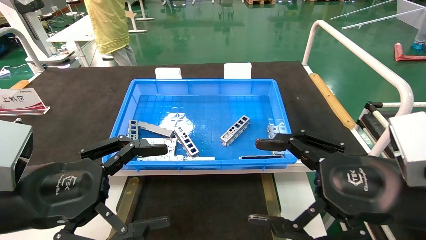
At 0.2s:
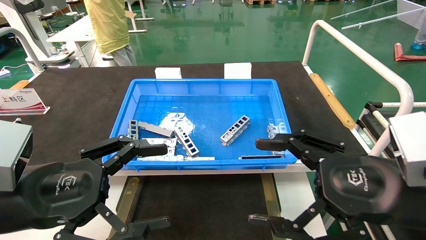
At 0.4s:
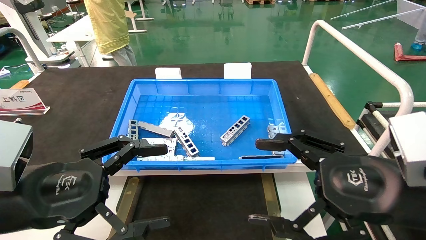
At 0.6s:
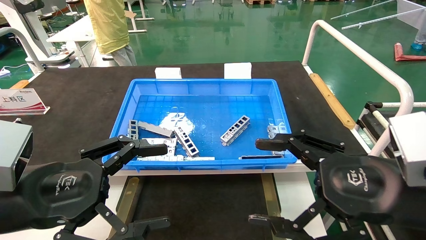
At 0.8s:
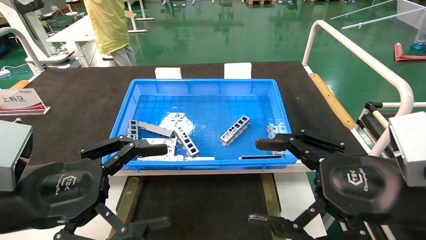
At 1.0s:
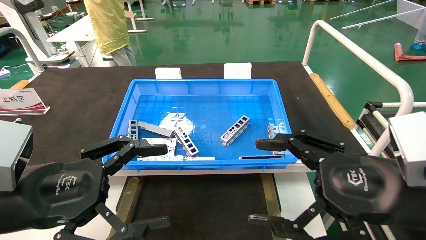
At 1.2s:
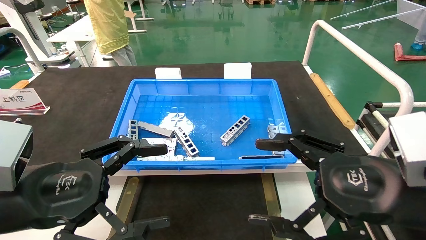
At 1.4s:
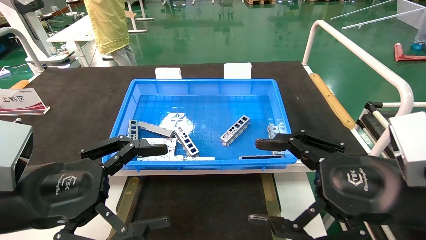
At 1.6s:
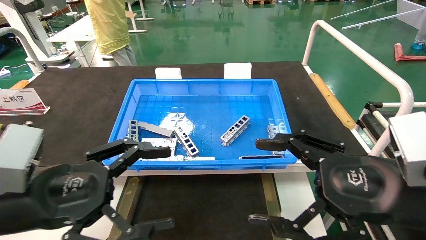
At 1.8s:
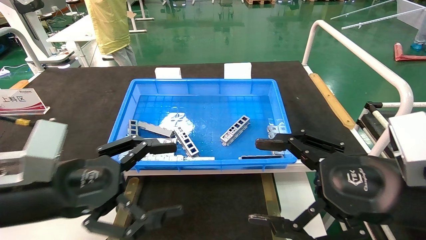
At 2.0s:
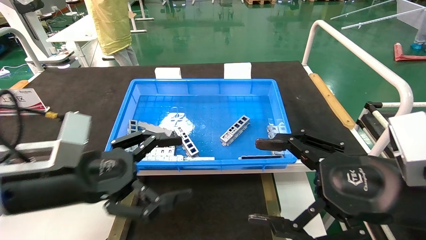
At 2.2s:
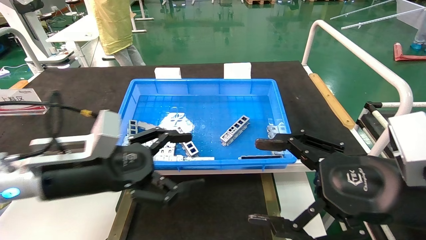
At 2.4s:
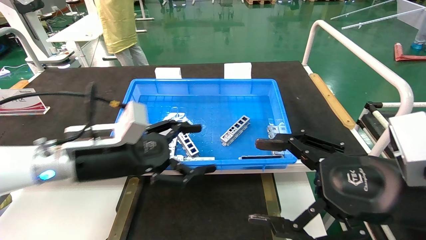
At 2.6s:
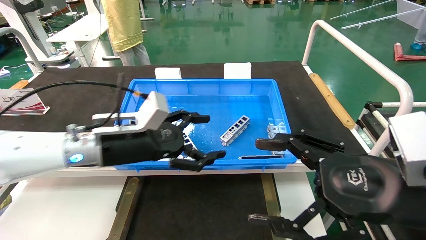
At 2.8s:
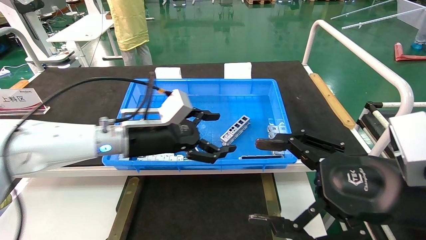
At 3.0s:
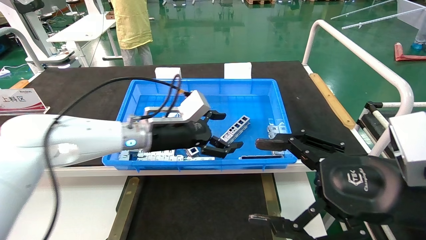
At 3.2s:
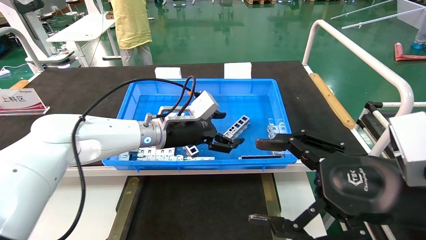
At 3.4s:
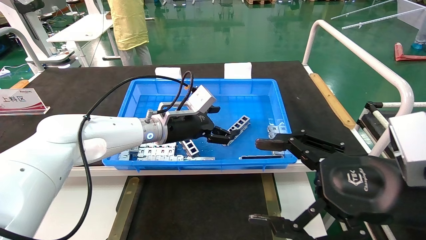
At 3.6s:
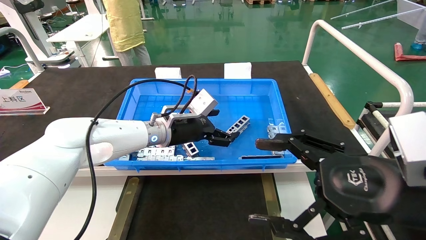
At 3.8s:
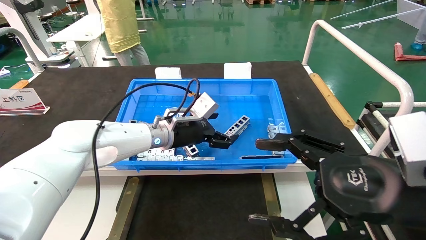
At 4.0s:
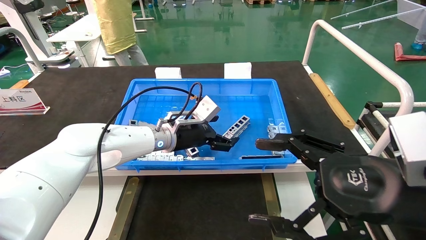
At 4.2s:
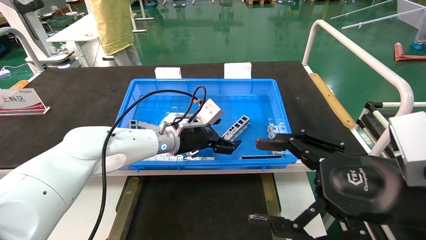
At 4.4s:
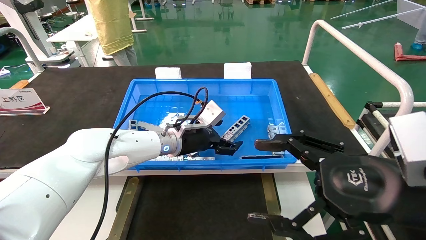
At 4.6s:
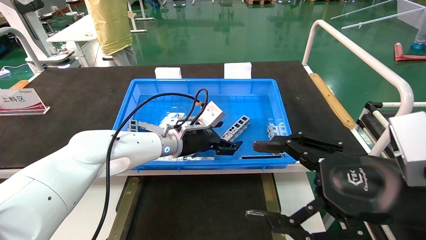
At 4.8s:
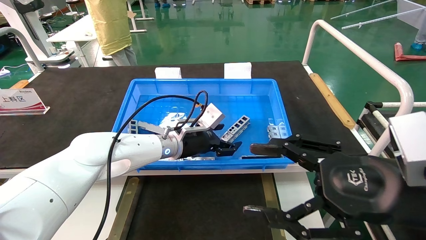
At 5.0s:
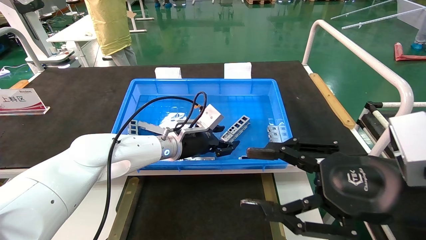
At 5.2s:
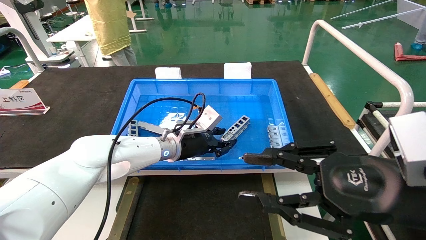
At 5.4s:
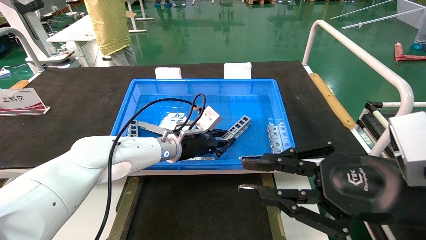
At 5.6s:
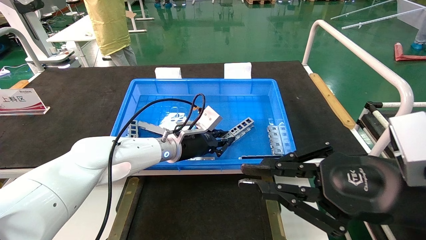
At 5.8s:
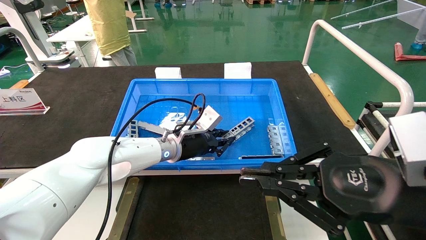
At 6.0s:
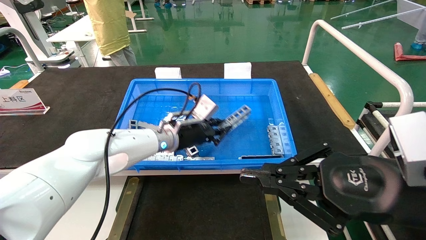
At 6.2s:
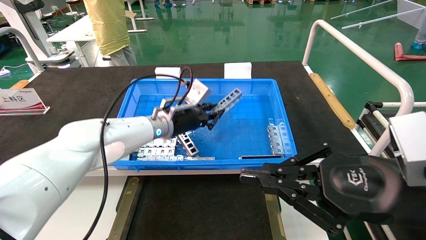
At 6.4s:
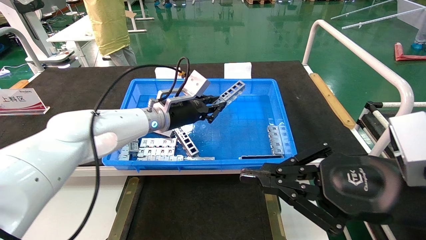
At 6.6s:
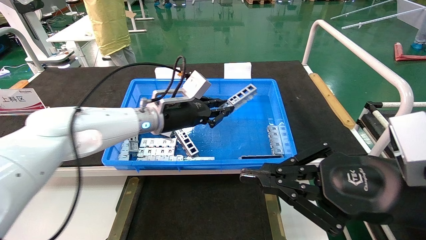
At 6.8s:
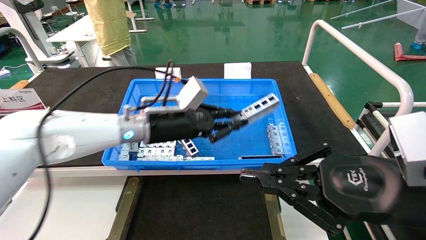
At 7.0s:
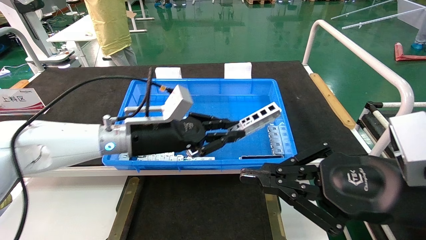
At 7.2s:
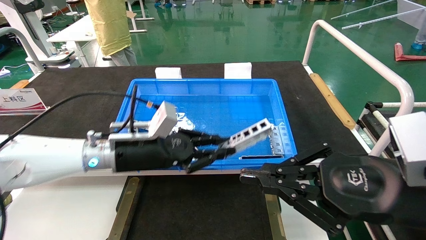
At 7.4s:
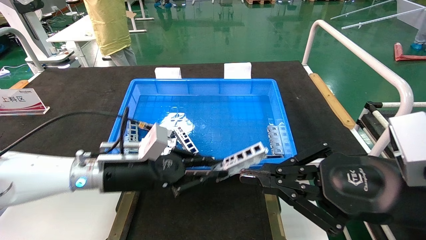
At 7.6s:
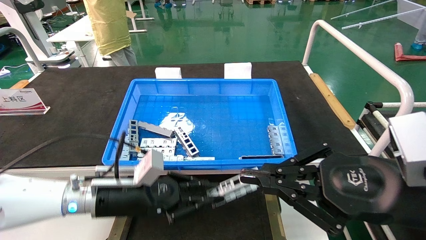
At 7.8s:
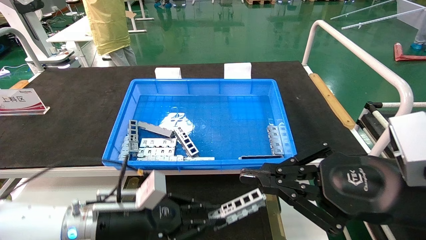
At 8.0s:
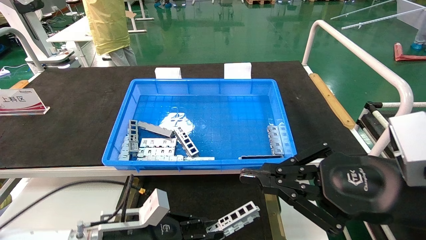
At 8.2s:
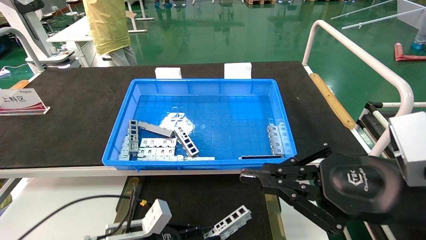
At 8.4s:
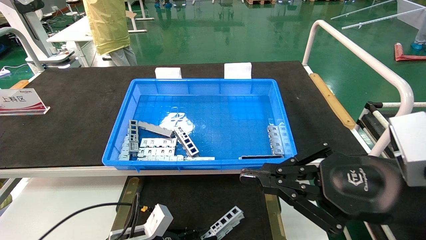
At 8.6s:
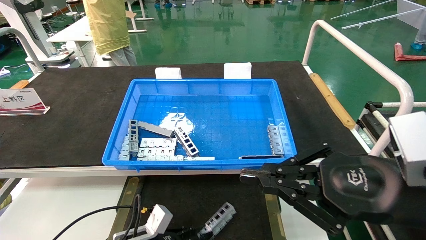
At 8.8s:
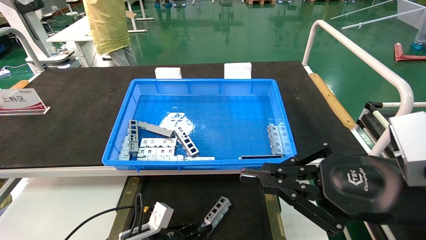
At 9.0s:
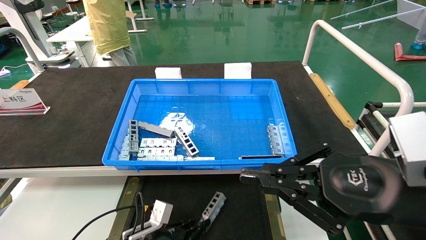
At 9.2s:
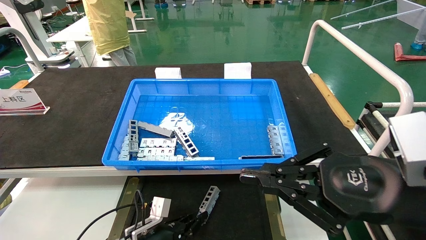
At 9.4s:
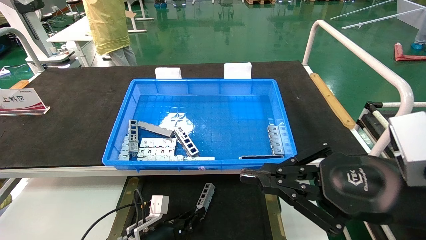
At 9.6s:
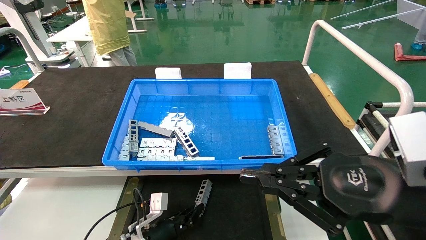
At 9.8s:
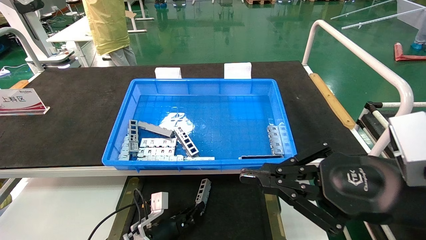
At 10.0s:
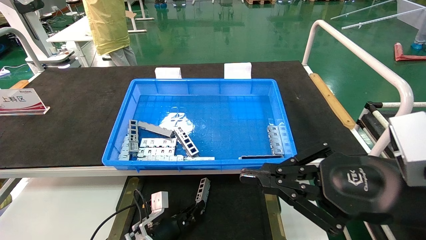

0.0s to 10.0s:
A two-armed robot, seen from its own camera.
Task of the whole recording: Grasp the part with one hand and place it on the black container.
Step, 1.8s to 5.4s: Pick up the front USB bracket from the feeding area.
0.0s to 1.4s: Both grippers stay about where they are.
1.4s to 2.8s: The left gripper is displaced forward and to the right by about 20 cm.
2.8s to 4.2s: The left gripper is displaced forward and to the right by about 10 cm.
4.2s to 5.8s: The left gripper closes up, while the right gripper closes its fingers.
5.8s to 7.2s: The left gripper is displaced backward and to the left by about 15 cm.
7.2s to 8.6s: The left gripper goes approximately 25 cm downward.
8.6s to 10.0s: The left gripper is displaced forward by roughly 5 cm.

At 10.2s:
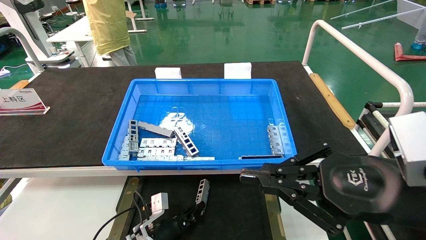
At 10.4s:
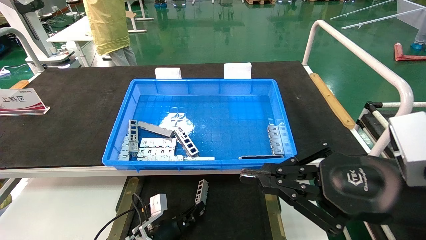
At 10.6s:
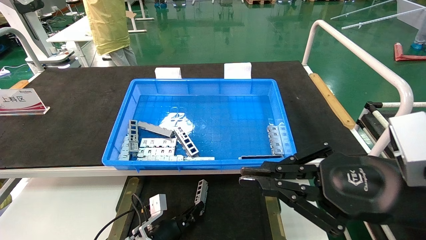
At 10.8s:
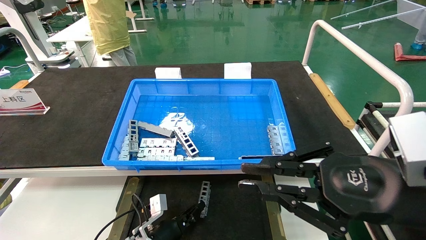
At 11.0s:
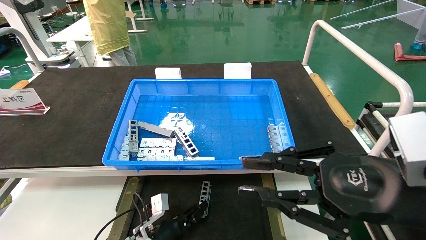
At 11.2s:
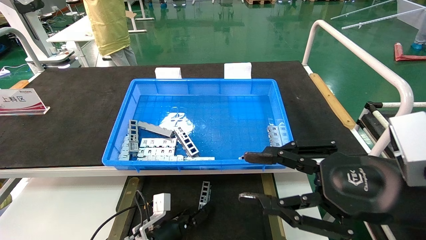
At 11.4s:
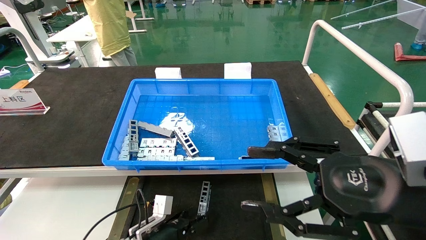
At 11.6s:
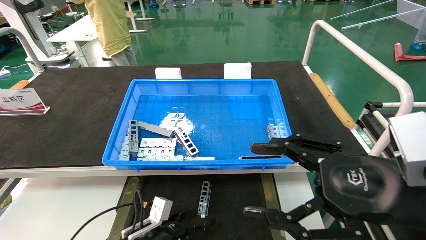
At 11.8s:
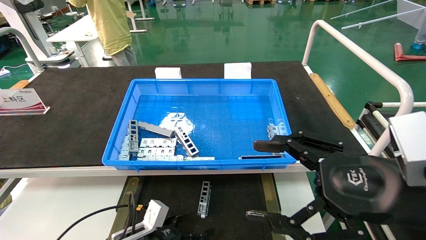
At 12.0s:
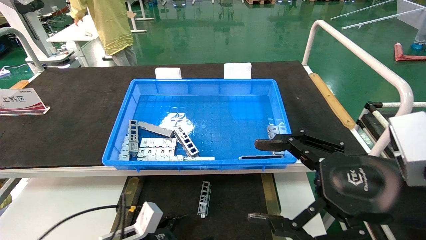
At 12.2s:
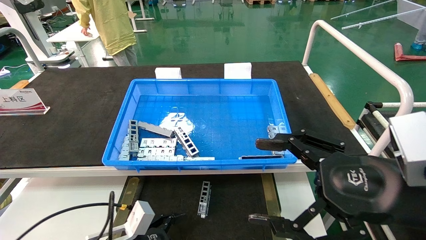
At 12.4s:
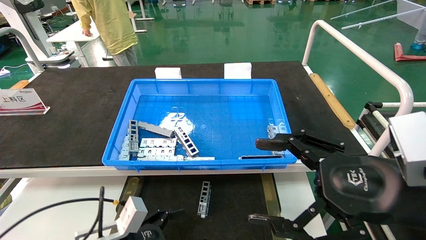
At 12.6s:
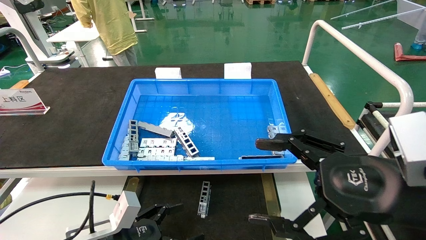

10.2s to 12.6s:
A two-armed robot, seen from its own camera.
Task of the whole recording: Grasp the part with one hand and place it on the black container.
10.2s to 11.4s: The left gripper opens its fingers; the right gripper opens.
11.4s to 12.6s: The left gripper moves upward, backward and to the left, approximately 15 cm, and opens up, while the right gripper opens its fingers.
